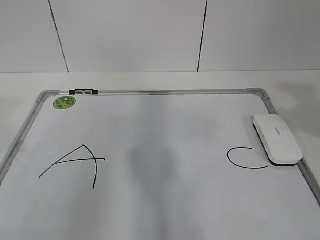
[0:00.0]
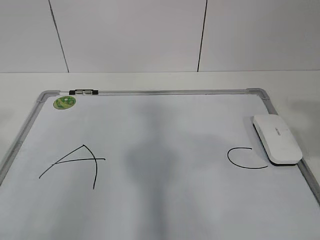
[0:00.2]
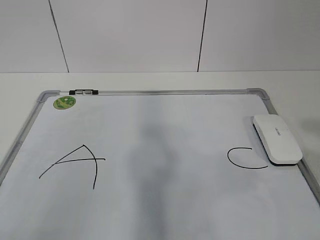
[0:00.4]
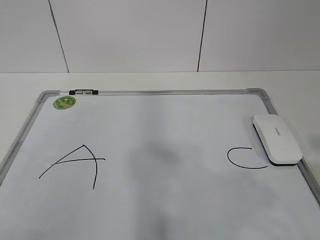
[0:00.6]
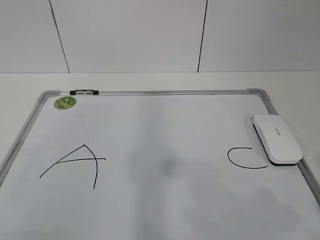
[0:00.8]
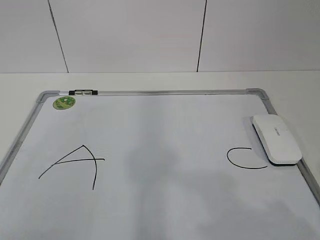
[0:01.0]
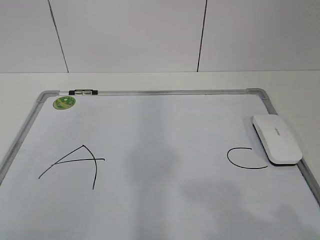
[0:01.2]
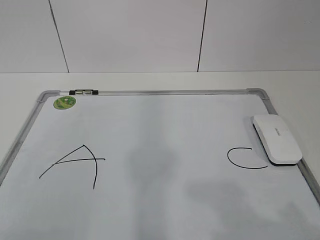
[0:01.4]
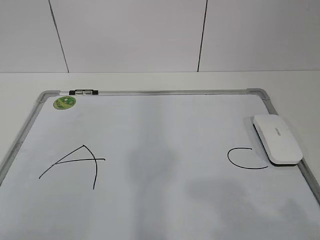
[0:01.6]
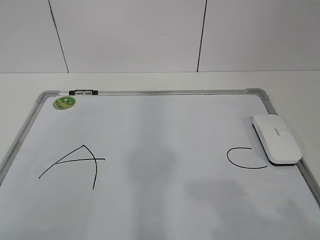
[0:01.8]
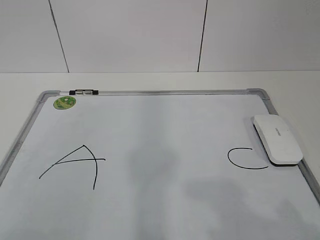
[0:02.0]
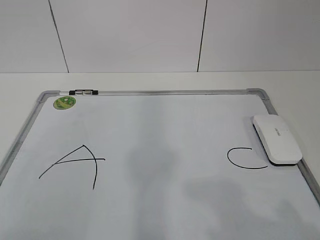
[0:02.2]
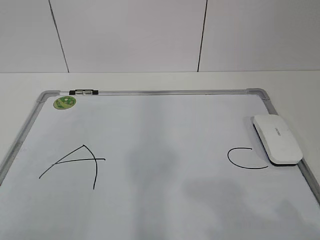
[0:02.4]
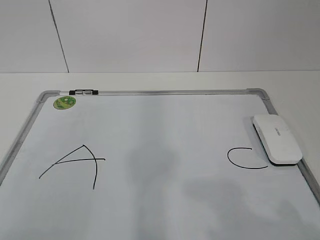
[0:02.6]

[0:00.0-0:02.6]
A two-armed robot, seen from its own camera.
Task of the whole recording: pick up the eraser on the blackboard and erase the letter "B".
0:00.0 to 0:01.2: The left gripper travels backward and downward by roughly 15 cm.
0:01.2 to 0:02.6: Neither gripper changes place.

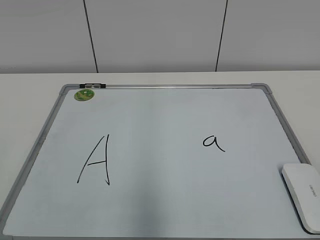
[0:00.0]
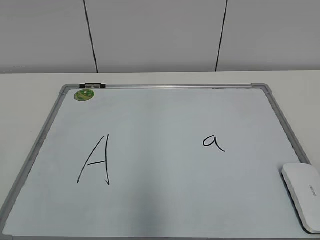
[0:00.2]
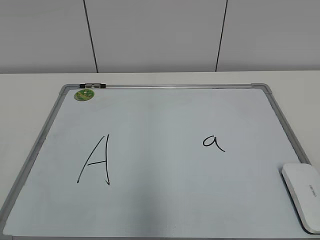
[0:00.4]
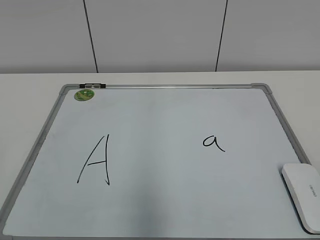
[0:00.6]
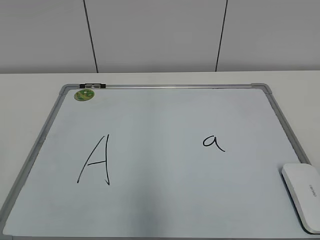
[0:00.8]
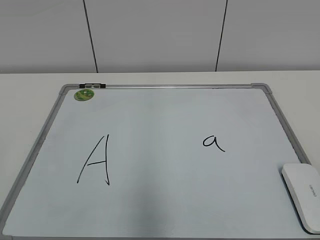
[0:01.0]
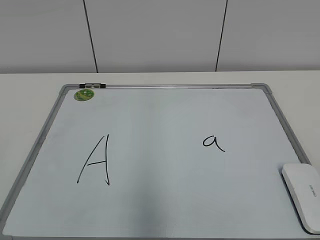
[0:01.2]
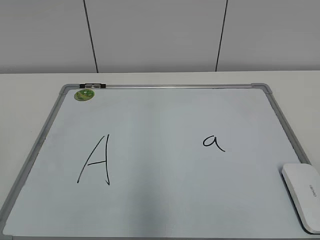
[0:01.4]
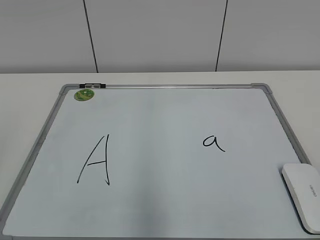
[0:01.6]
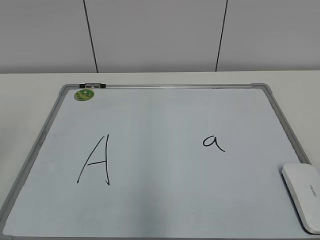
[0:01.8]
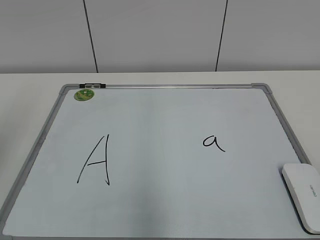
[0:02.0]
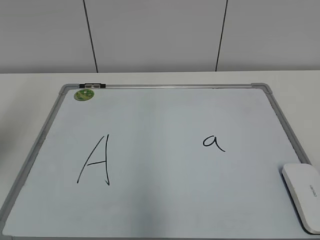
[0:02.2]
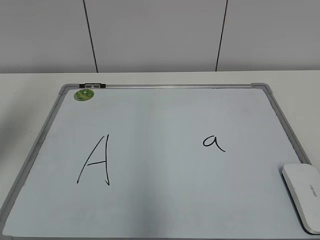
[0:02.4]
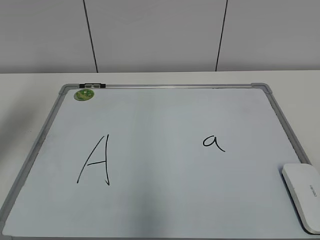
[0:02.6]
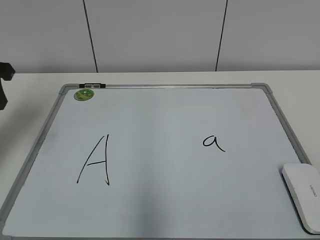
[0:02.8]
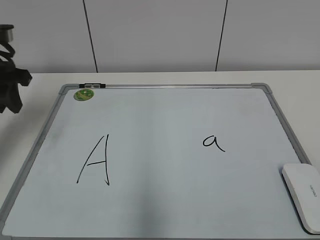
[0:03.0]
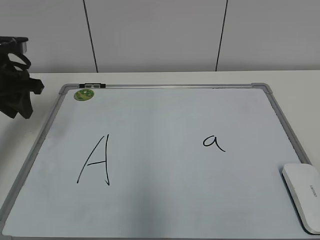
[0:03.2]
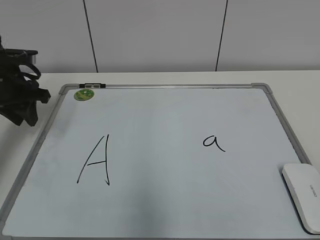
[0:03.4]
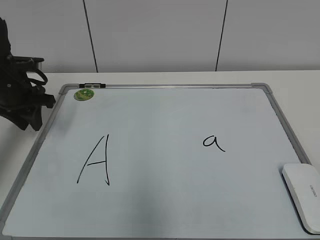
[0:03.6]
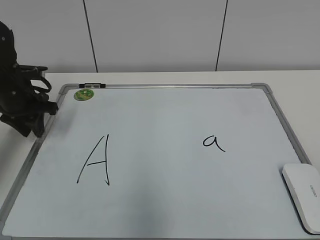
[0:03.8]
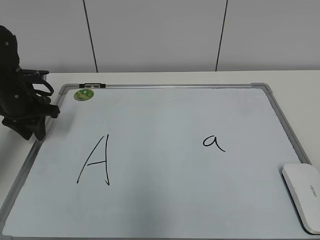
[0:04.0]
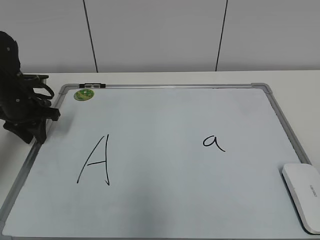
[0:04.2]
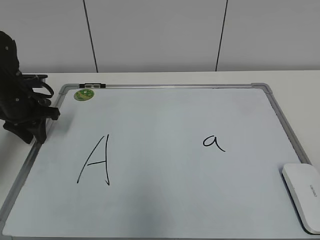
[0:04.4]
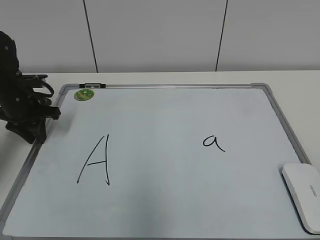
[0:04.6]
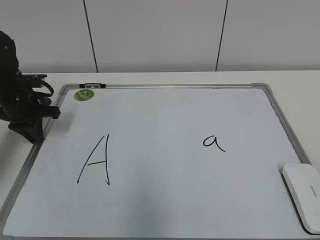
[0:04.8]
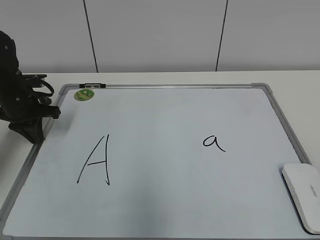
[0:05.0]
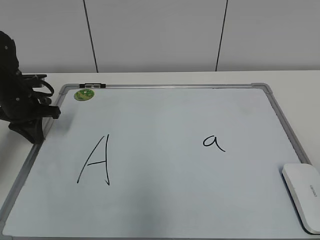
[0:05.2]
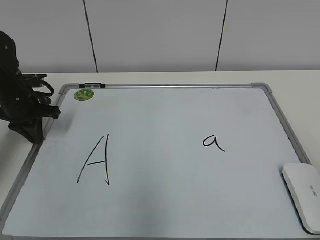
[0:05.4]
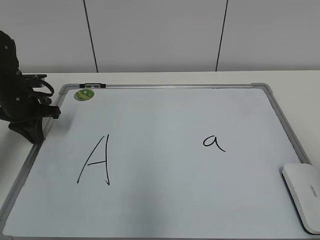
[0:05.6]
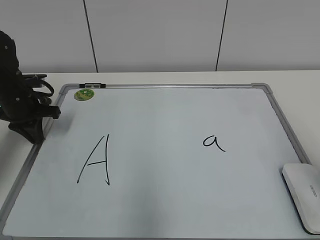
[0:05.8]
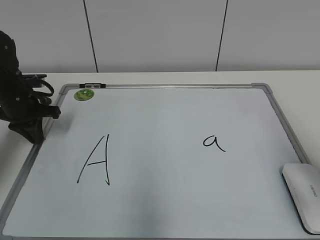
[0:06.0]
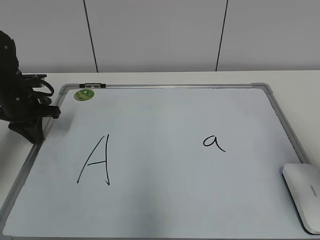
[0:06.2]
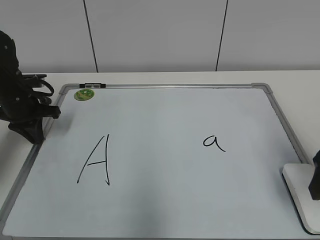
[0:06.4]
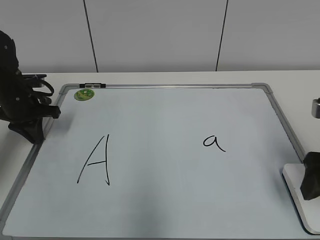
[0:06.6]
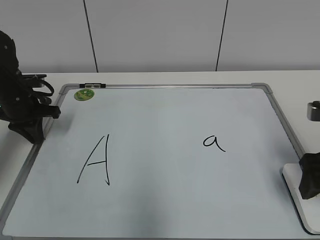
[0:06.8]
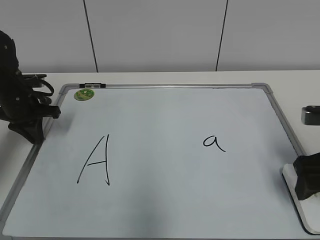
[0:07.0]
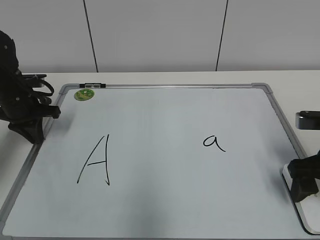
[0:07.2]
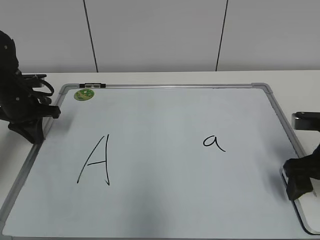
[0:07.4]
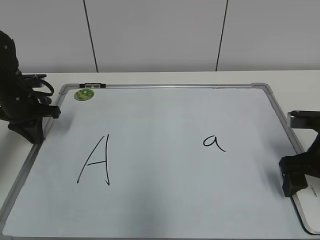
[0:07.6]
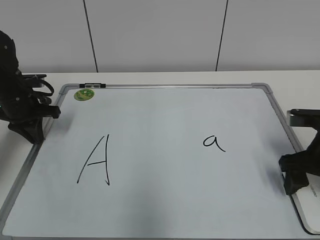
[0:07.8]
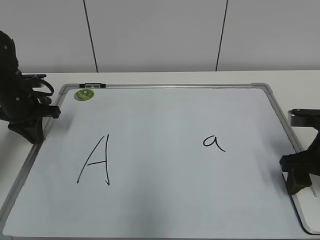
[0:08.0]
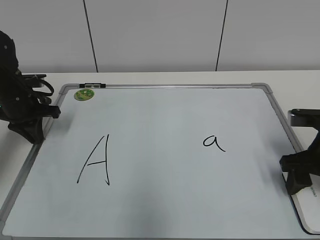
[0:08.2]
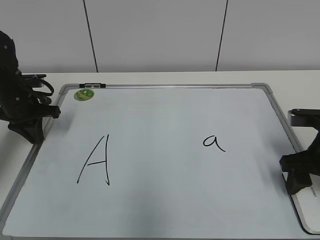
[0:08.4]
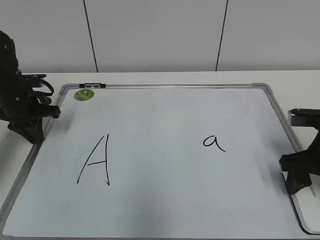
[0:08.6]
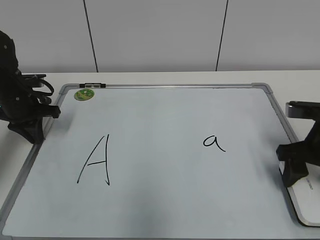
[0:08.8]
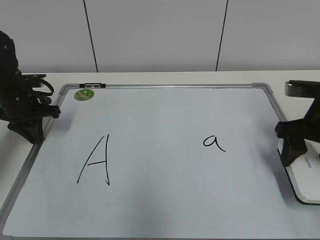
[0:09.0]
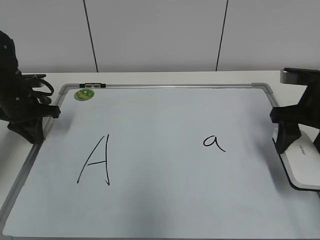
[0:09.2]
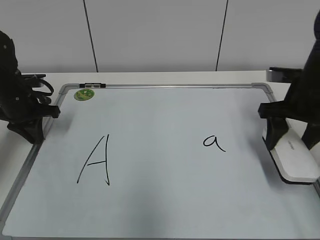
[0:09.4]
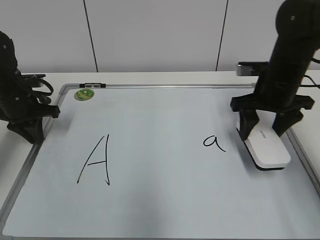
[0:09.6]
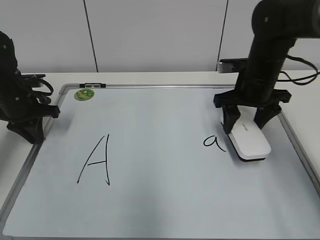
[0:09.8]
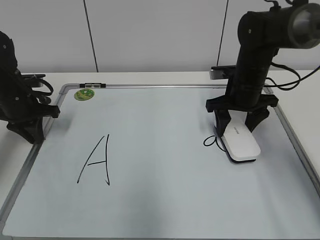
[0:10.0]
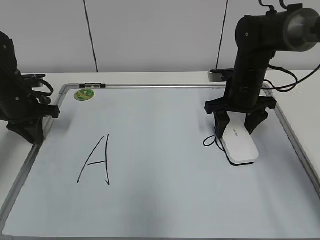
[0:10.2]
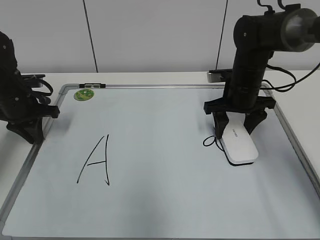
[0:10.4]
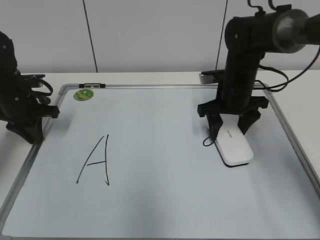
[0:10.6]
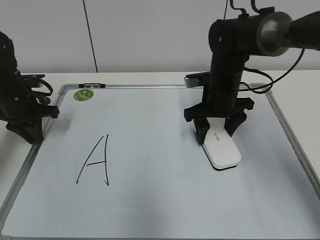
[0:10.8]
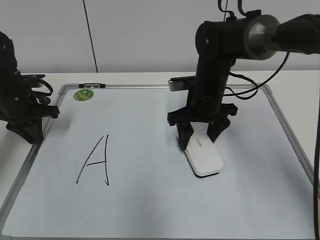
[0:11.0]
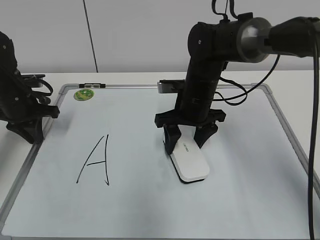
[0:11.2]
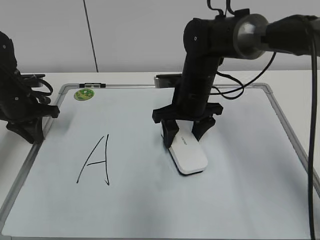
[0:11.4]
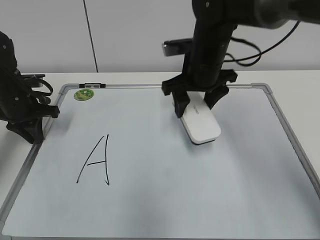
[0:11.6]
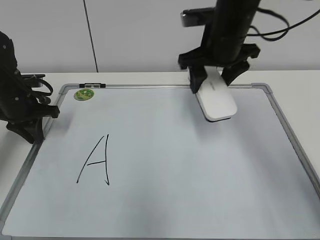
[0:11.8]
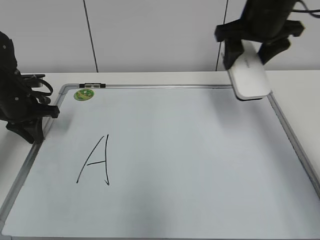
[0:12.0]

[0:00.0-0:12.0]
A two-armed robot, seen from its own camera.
Task of the whole recording: pick up the eraser on the blackboard and erase the letter "a".
Step, 0:00.0 to 0:04.8: Hold the drawing board steady with your left hand.
Step, 0:05.0 to 0:08.4: Grab the eraser with your right hand.
Step, 0:08.6 to 0:11.2: Erase the letter a with your right hand.
0:01.6 to 0:03.0: The left gripper shifts some 30 cm forward.
0:03.0 to 0:04.4: The left gripper shifts approximately 15 cm downward and forward.
0:04.4 to 0:06.0: The left gripper closes up. The right gripper is displaced forward by some 20 cm.
0:06.0 to 0:07.6: The right gripper moves downward and forward, roughly 15 cm, and opens its fingers.
0:07.6 to 0:09.0: The right gripper changes place by about 5 cm, and closes its fingers.
0:09.0 to 0:10.4: The right gripper is displaced forward and to the left by about 15 cm.
0:10.4 to 0:12.0: The right gripper shifts approximately 15 cm upward.

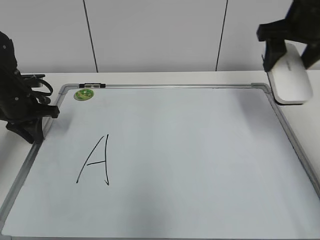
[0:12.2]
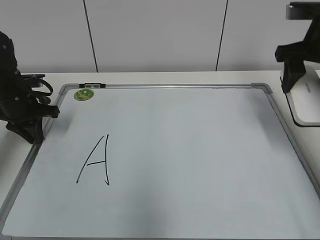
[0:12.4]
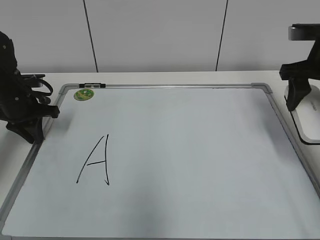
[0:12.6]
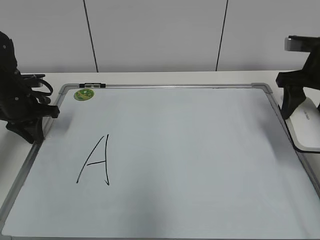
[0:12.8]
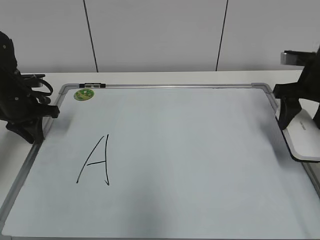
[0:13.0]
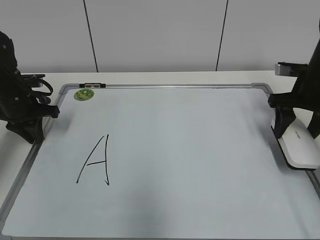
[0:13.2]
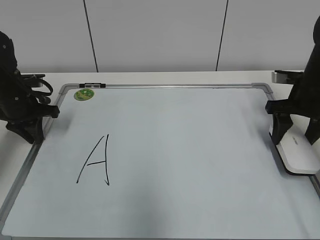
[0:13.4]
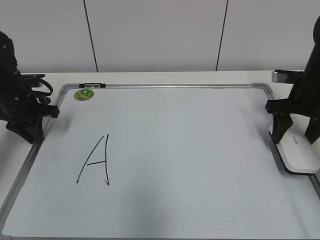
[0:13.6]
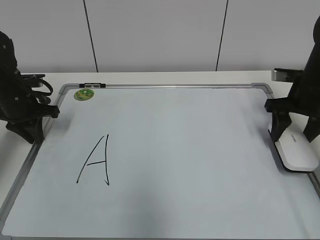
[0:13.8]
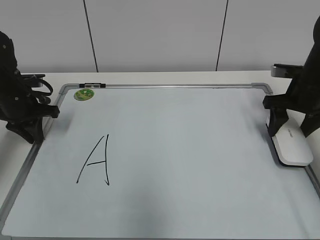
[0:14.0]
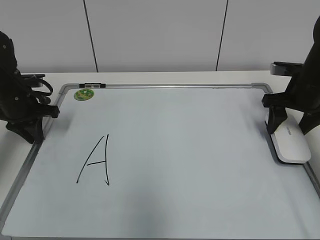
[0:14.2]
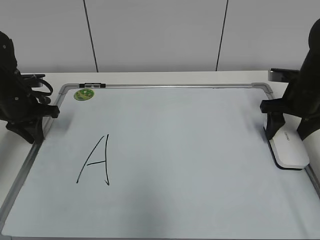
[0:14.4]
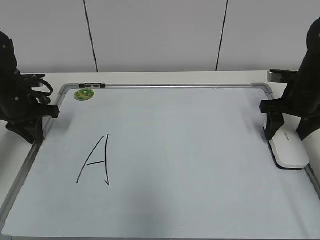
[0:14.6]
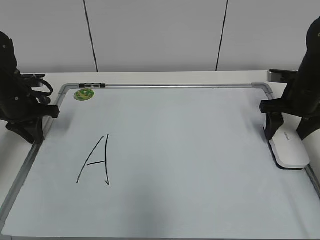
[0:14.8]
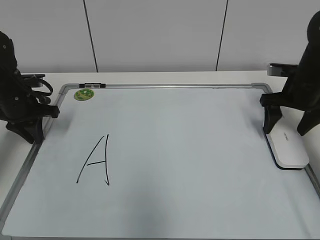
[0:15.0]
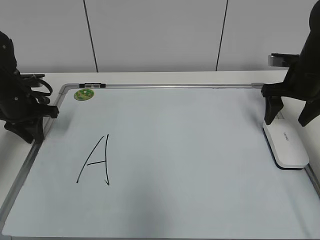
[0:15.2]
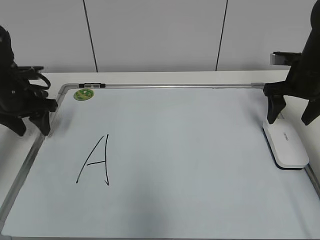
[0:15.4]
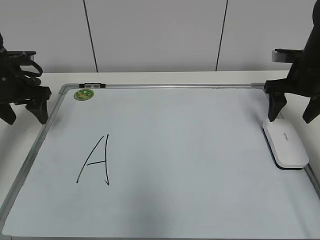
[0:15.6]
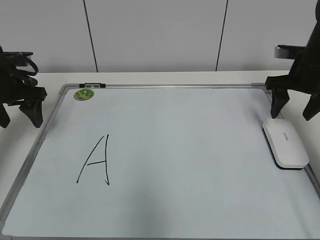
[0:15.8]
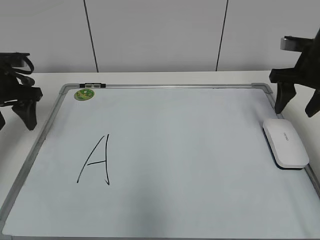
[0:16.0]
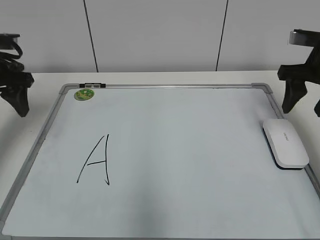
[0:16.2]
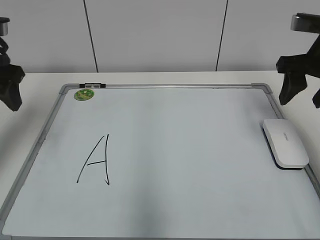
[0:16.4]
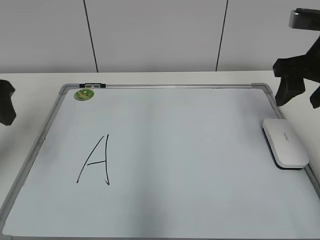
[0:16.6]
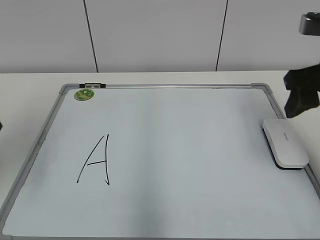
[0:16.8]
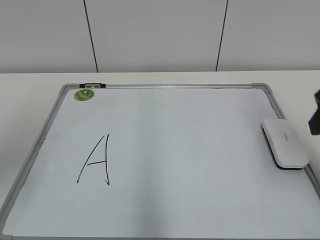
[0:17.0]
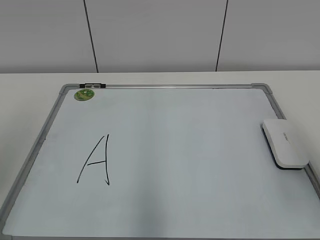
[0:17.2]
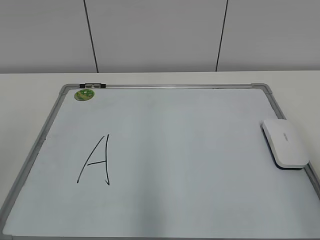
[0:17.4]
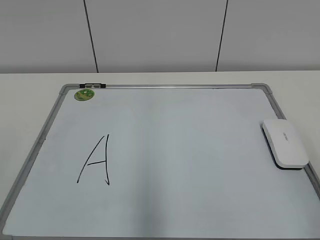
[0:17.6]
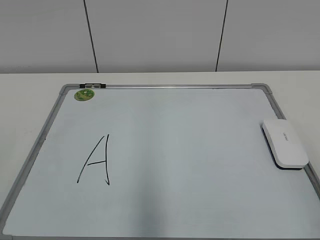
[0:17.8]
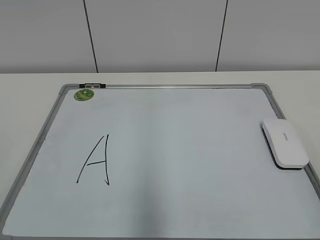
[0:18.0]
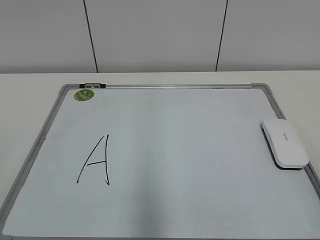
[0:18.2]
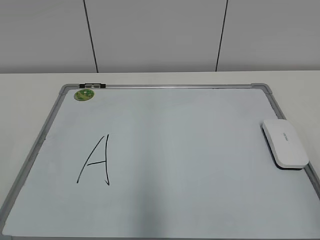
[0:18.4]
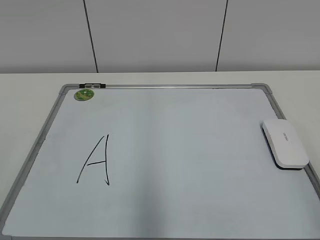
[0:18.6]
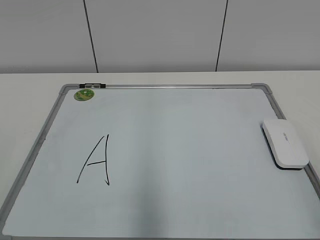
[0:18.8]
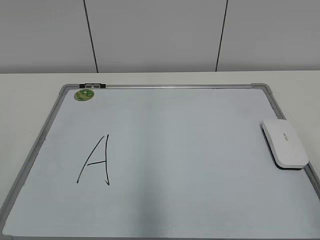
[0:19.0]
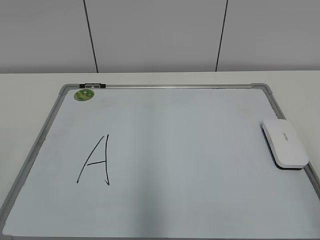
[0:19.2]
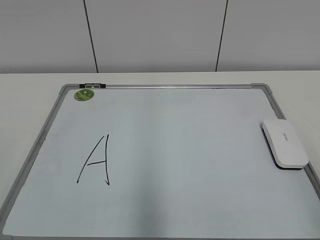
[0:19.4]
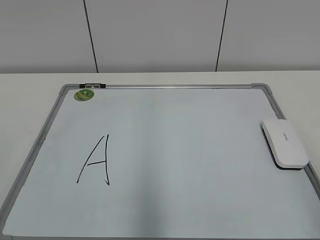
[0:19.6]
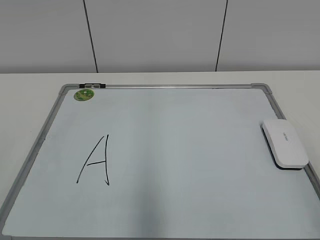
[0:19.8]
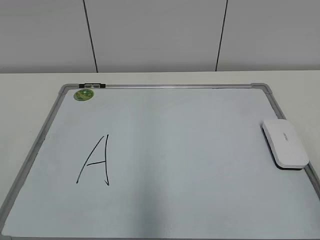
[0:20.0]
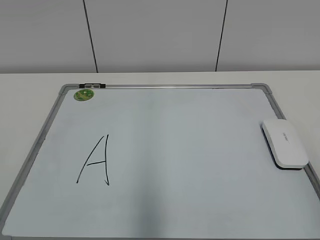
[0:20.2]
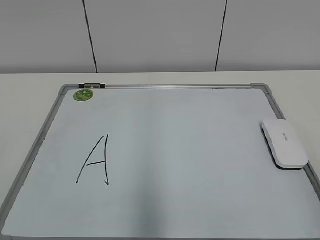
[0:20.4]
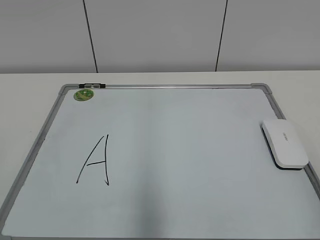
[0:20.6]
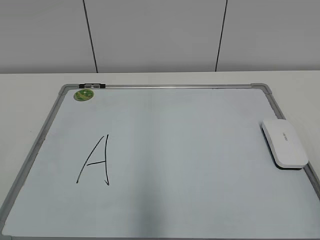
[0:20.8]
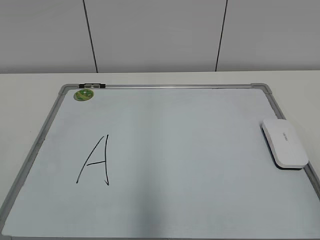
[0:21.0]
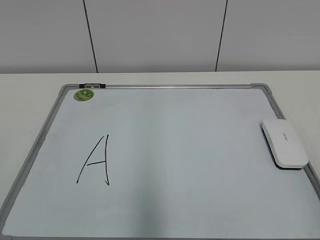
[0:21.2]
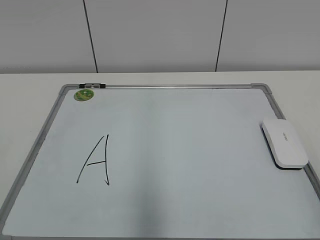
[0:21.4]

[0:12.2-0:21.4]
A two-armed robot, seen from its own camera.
Task of the whole recording: pick up the eraser on the blackboard and erase the letter "a".
Step, 0:12.2 to 0:14.8: Put down the eraser with your right hand.
0:12.2 to 0:13.8: The right gripper is displaced downward by roughly 15 cm.
0:13.8 to 0:15.2: The right gripper opens up.
0:15.2 to 0:16.8: The two grippers go about 20 cm backward and upward. The left gripper opens its fingers. Meanwhile the right gripper closes.
0:16.8 to 0:18.4: The right gripper is displaced backward by about 25 cm.
0:18.4 to 0:19.8: Both grippers stay put.
